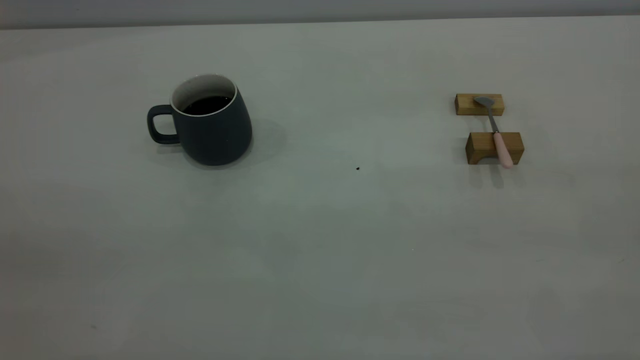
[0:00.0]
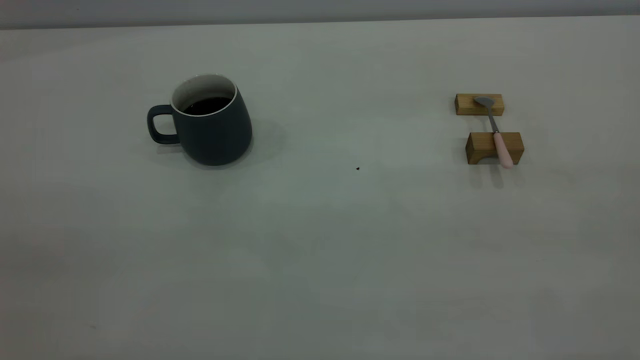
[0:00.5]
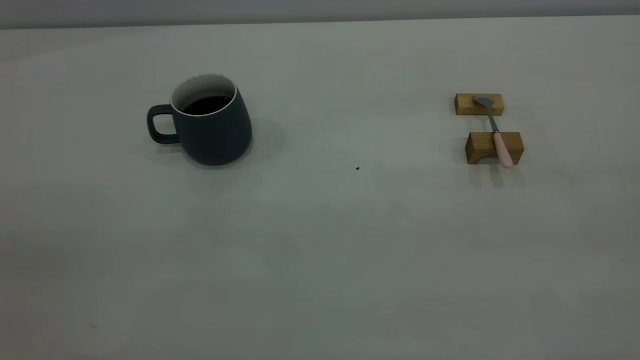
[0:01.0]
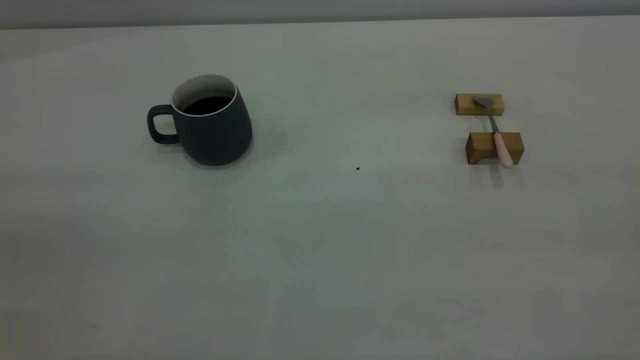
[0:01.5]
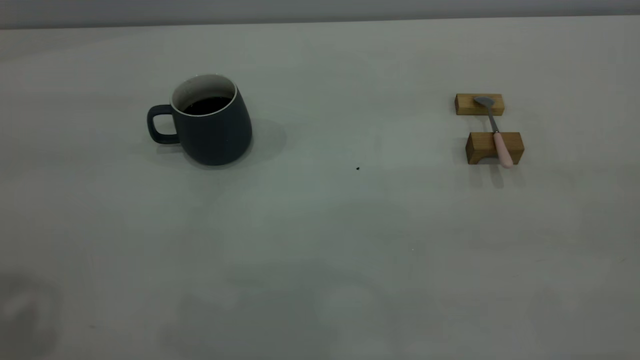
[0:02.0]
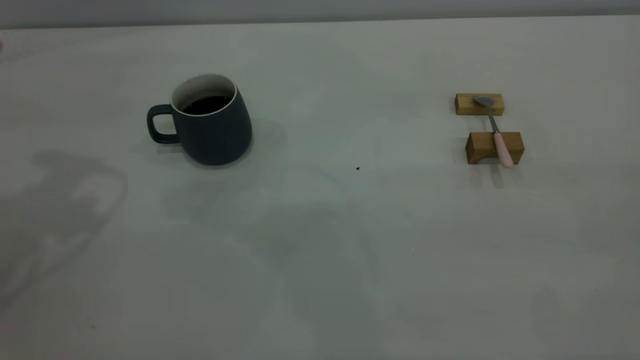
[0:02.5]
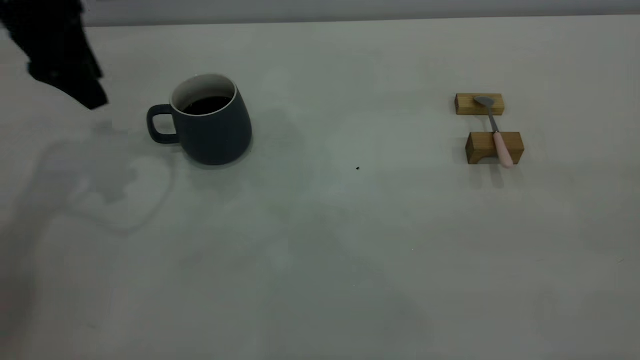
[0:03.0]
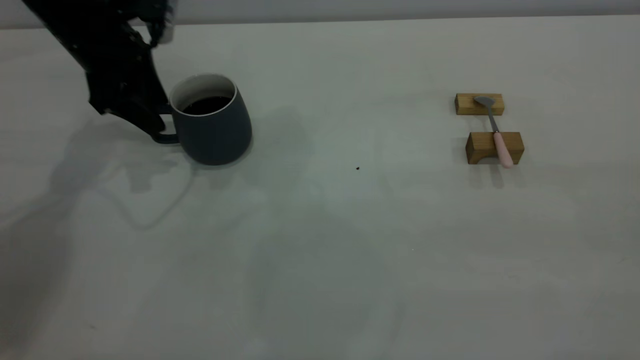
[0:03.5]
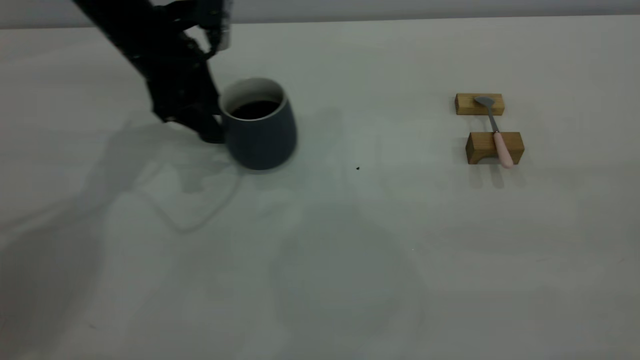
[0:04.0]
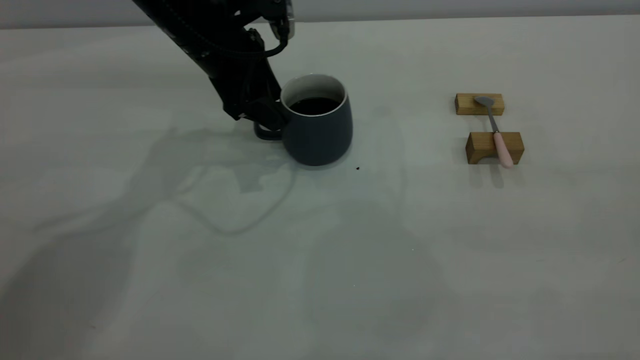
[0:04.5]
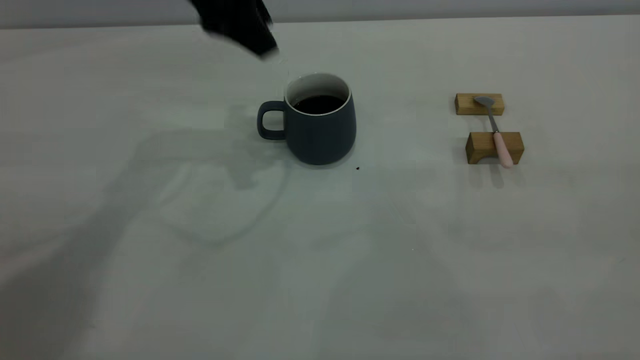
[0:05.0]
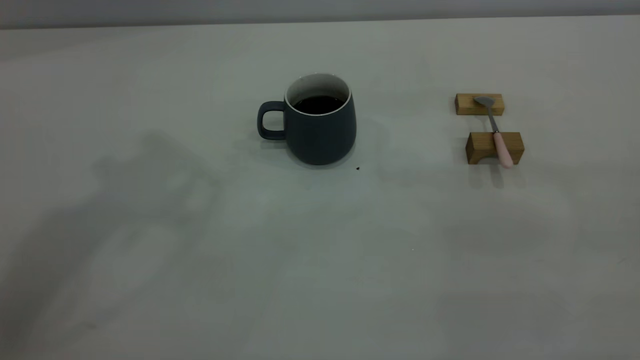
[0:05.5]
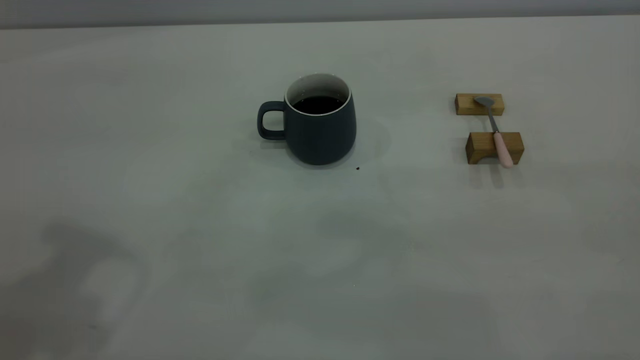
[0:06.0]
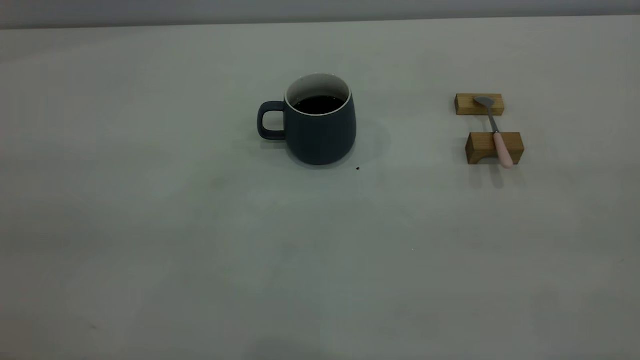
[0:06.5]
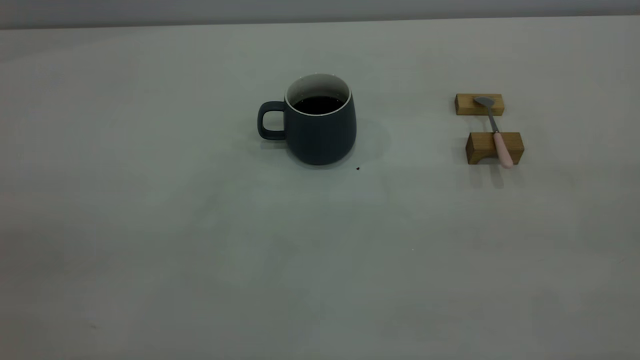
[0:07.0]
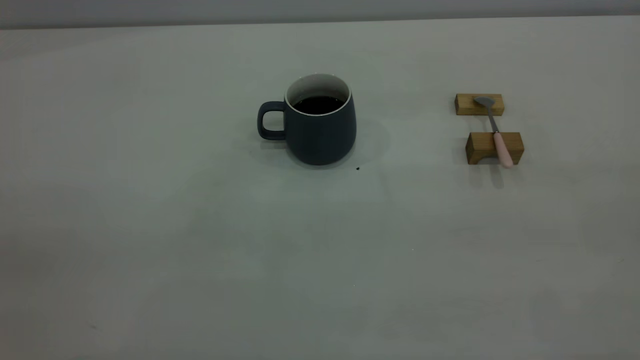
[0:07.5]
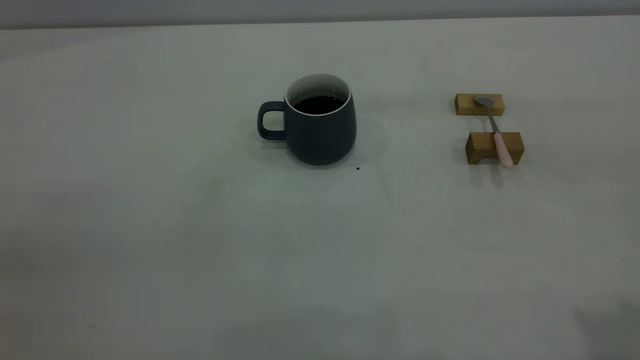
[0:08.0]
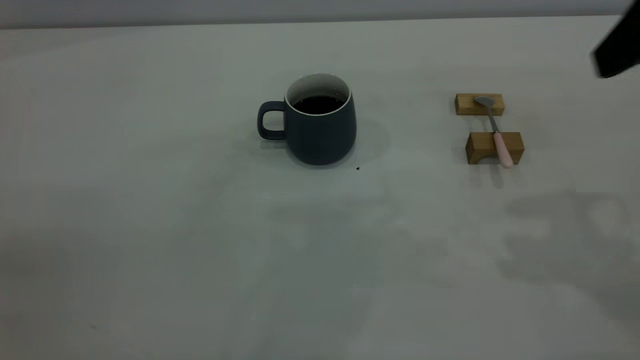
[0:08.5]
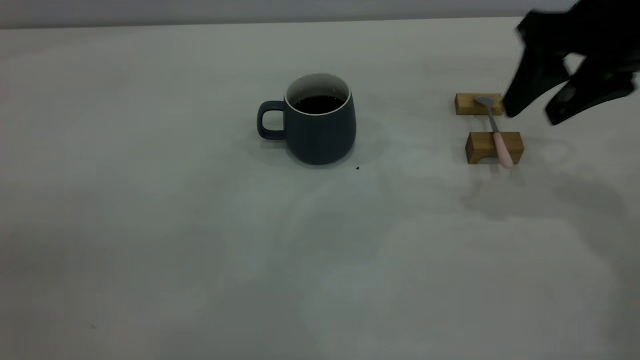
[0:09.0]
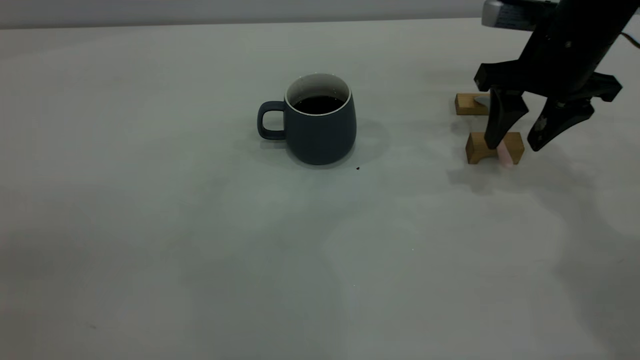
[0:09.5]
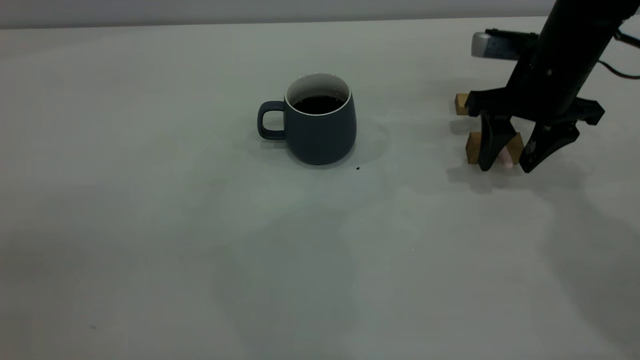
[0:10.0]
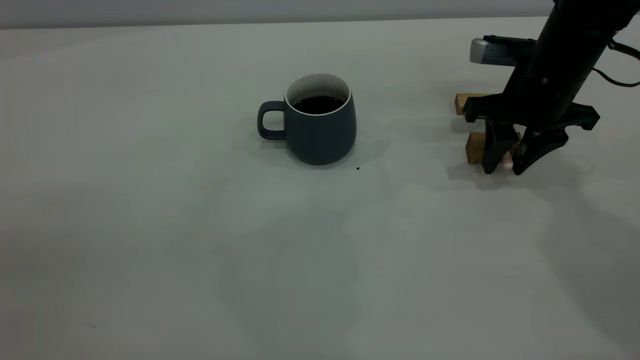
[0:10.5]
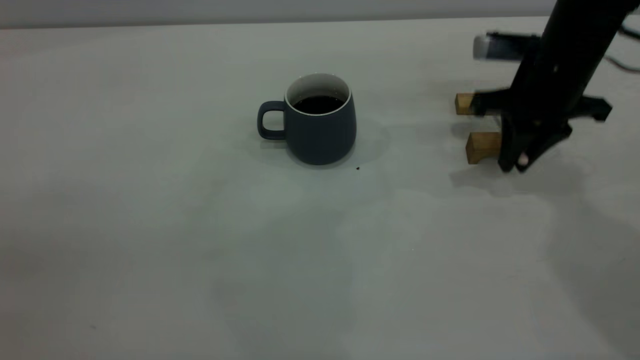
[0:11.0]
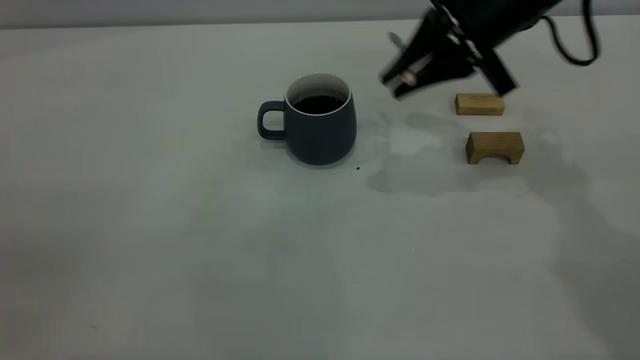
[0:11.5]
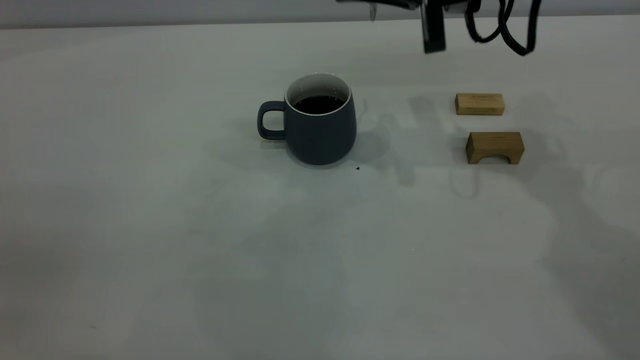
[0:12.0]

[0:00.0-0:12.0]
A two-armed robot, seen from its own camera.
Step, 0:00.0 to 0:04.5: Move the cup with coffee to the center of view.
Step, 0:05.0 to 0:11.0: Pick up the spoon.
0:02.0 to 0:04.0: The left gripper heads forward and downward, covering about 35 cm.
0:04.0 to 0:06.0: The left gripper shifts roughly 35 cm upward and backward.
0:08.0 to 0:10.0: The right gripper travels forward and downward by about 35 cm.
0:10.0 to 0:12.0: The right gripper travels upward and to the left by roughly 10 cm, and closes its fingers.

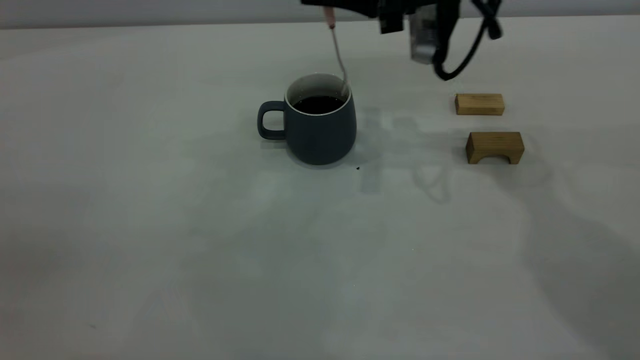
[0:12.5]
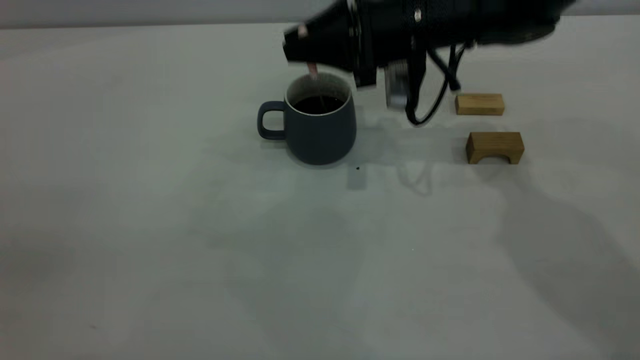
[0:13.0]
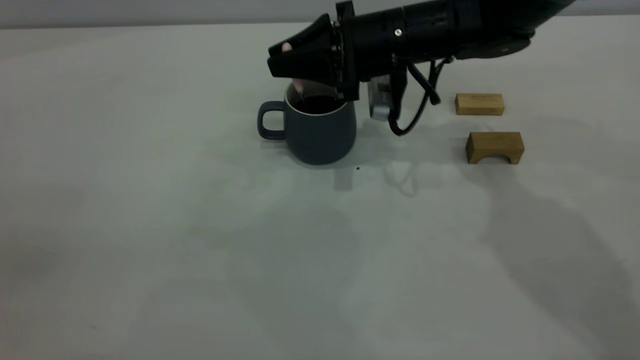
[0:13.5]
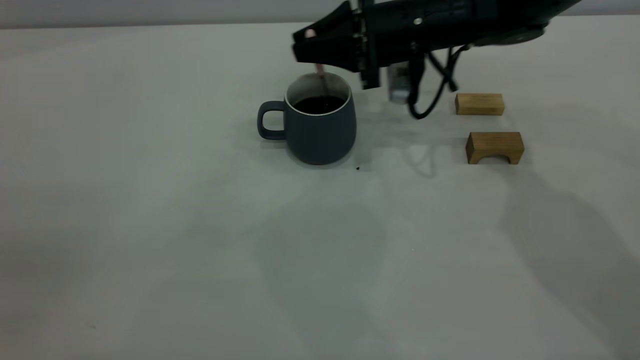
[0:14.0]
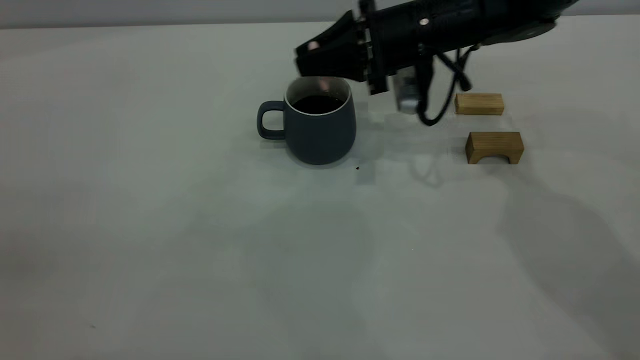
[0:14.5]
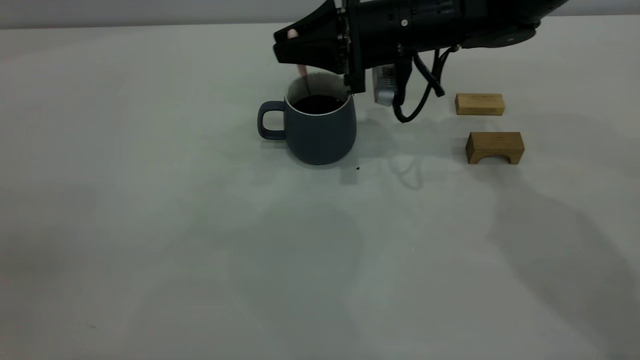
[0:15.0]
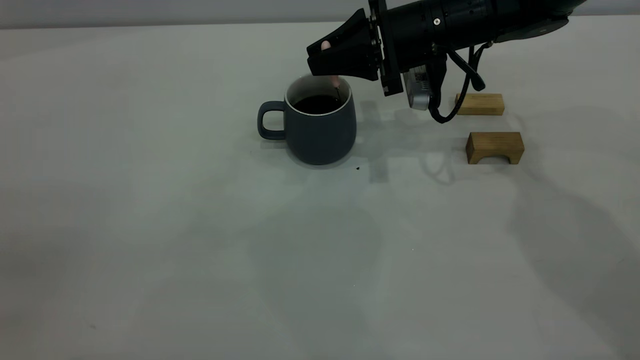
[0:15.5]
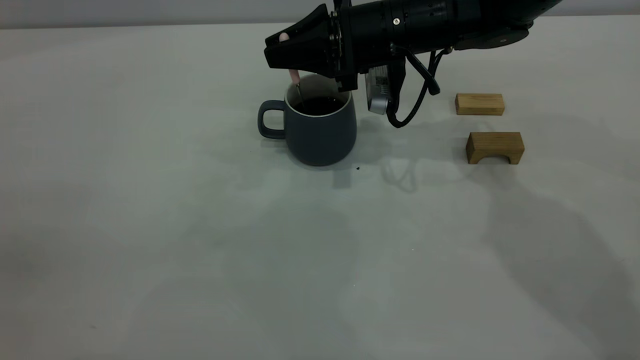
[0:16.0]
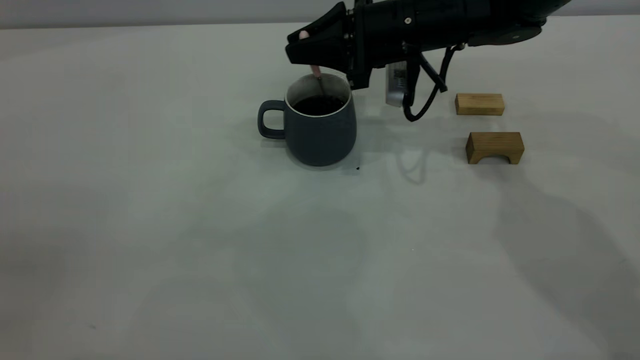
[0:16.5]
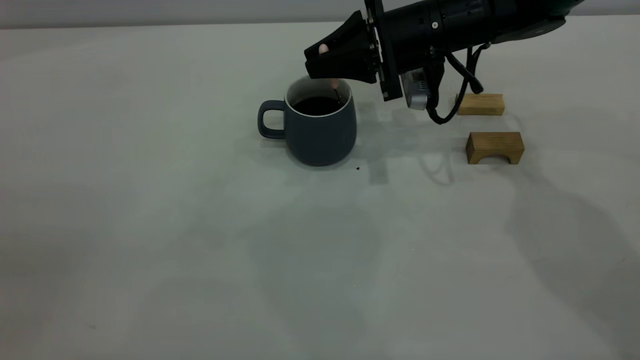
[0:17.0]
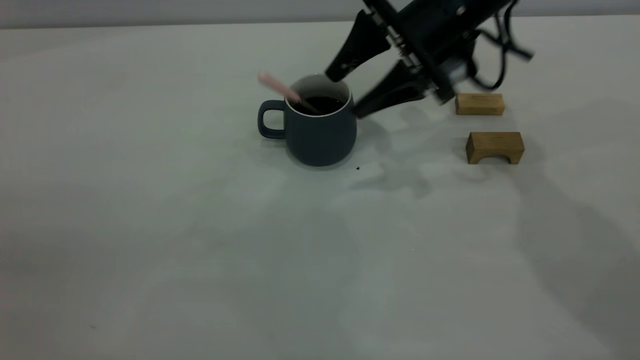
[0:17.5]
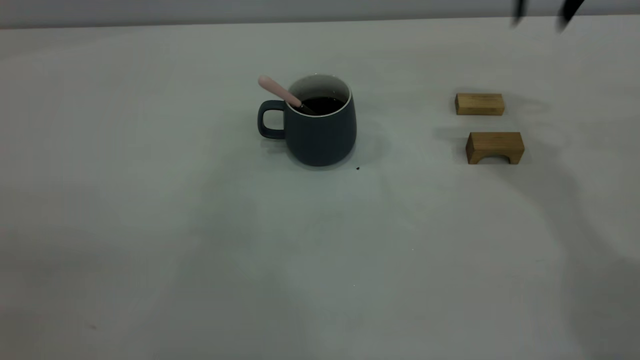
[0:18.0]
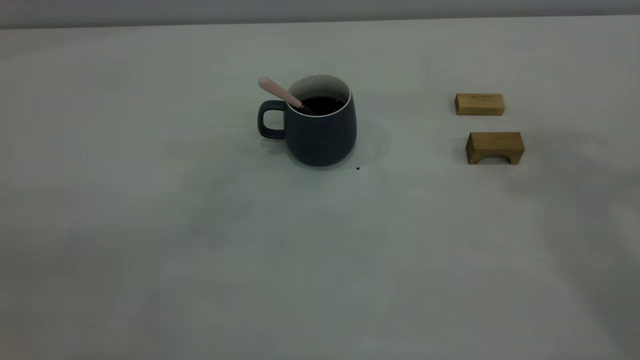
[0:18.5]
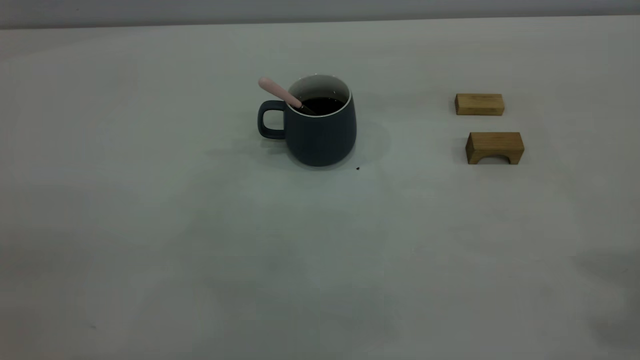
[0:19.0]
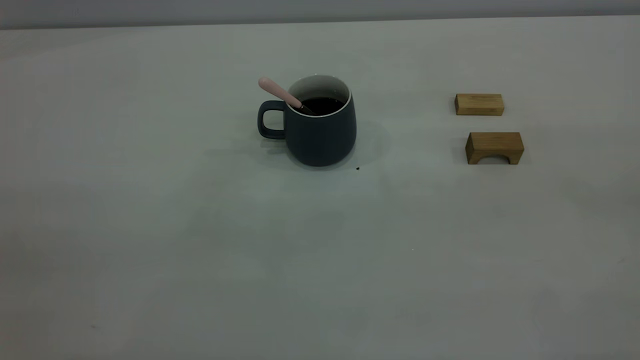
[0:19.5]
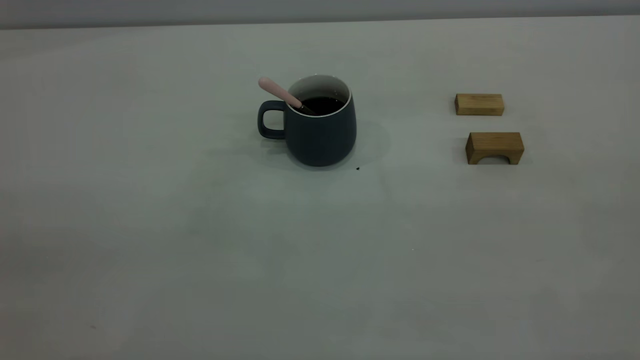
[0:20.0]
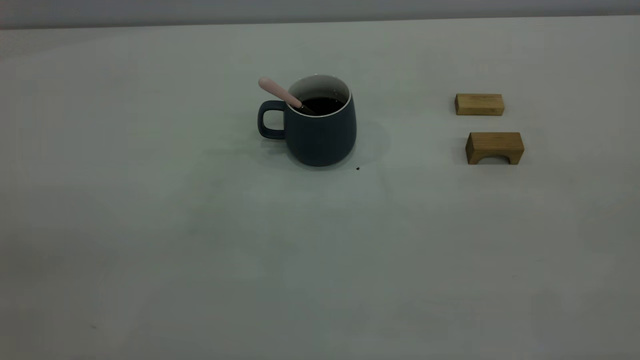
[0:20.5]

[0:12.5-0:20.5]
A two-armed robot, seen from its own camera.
Step, 0:12.5 to 0:17.0: Stir the coffee in the cup.
0:12.5 to 0:14.5: The right gripper moves downward, some 5 cm.
0:14.5 to 0:16.5: The grippers stay close to where they were, moving slightly.
0:16.5 to 0:18.5: The right gripper is displaced upward, backward and to the right by some 40 cm, and opens, then closes once more.
